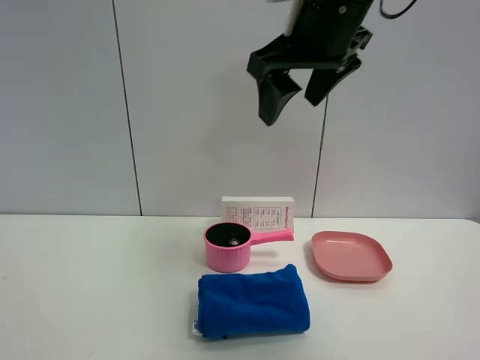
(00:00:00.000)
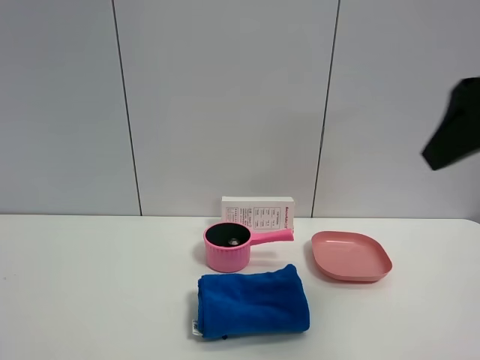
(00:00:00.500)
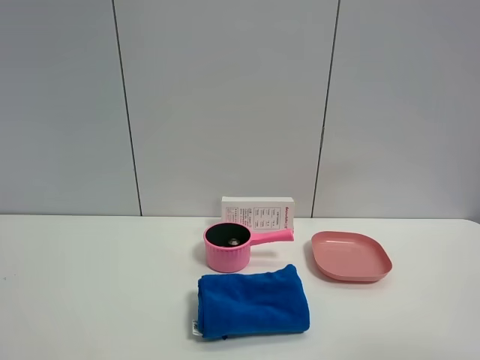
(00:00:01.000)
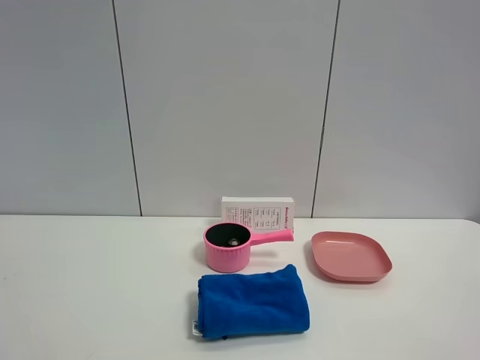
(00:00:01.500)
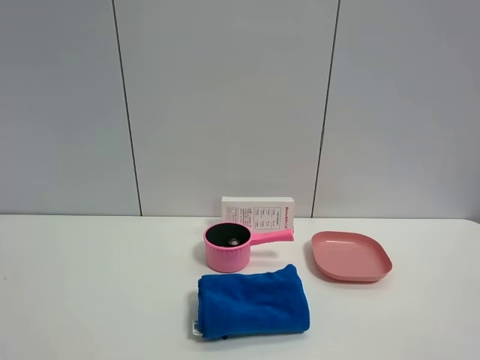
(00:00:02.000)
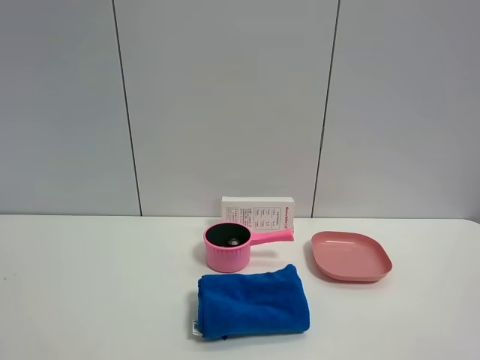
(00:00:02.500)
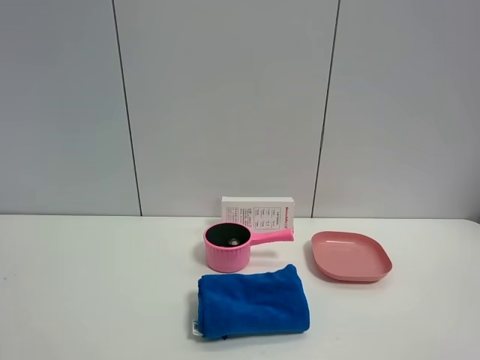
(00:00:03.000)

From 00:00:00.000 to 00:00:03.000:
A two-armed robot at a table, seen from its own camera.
Task of the whole recording: the gripper move the object.
From 00:00:00.000 to 00:00:01.500: The right gripper travels backward and to the right by roughly 35 cm.
From 00:00:01.500 to 00:00:03.000: Both grippers stay put.
